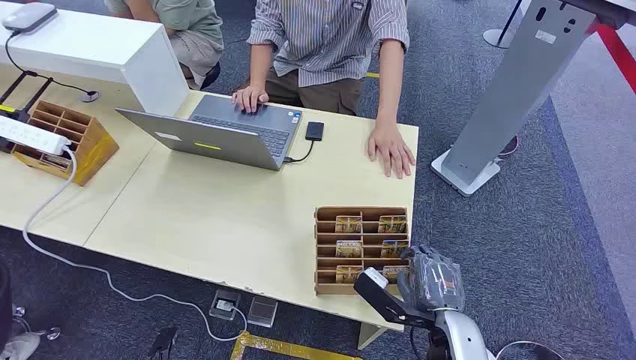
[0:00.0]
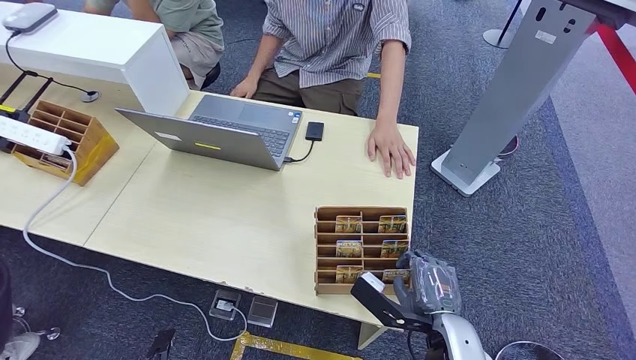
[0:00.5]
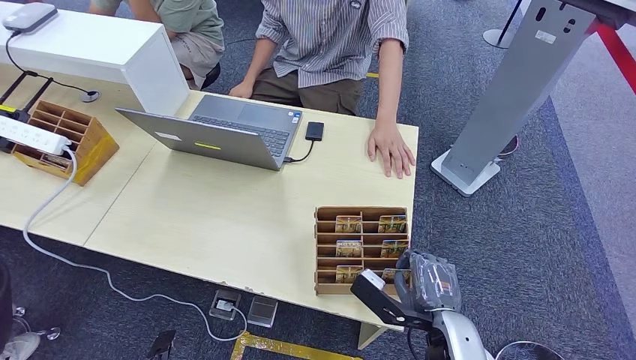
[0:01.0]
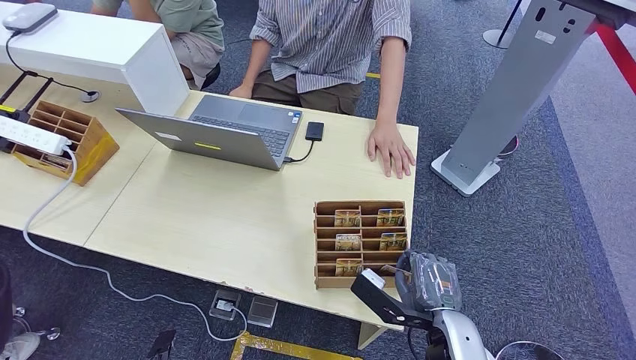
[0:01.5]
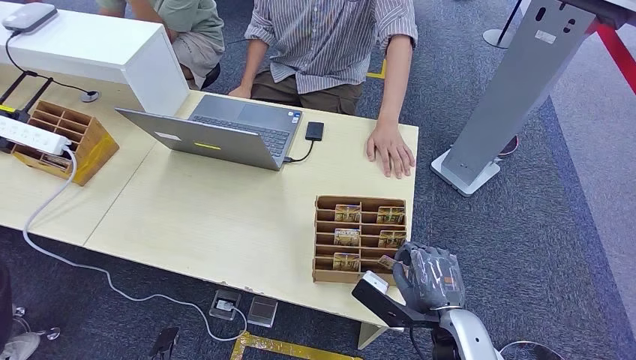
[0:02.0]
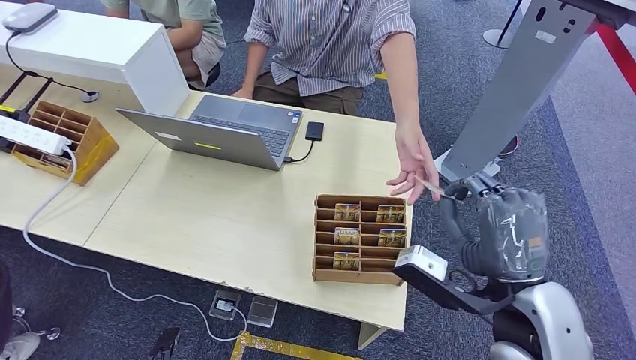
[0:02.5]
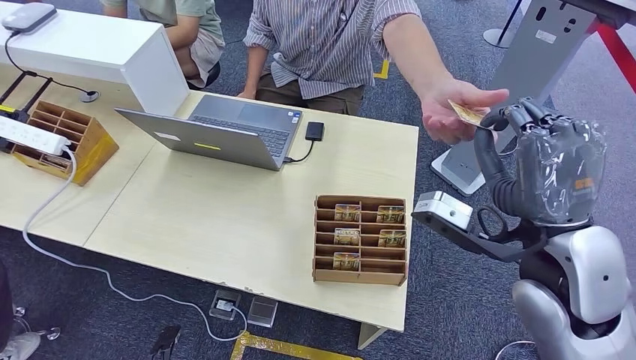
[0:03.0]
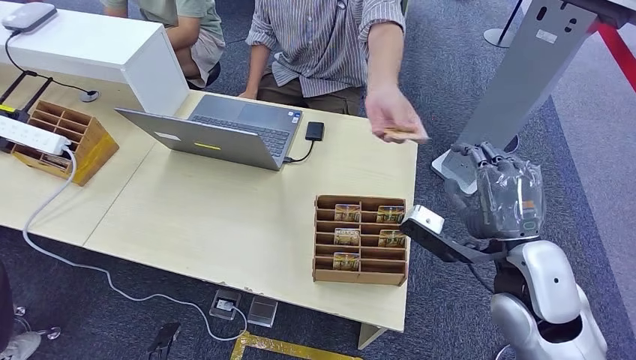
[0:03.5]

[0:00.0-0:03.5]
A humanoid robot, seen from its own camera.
Step, 0:00.0 to 0:02.0: Pick up the room card from the card holder.
Step, 0:03.0 to 0:03.5: Hand the room card to the target.
0:02.0 to 0:03.5: The right hand travels upward and forward by approximately 15 cm.
